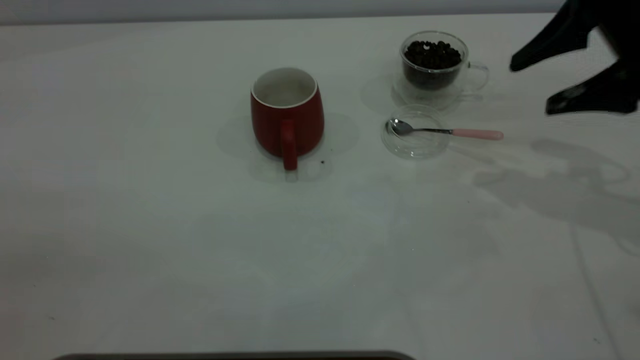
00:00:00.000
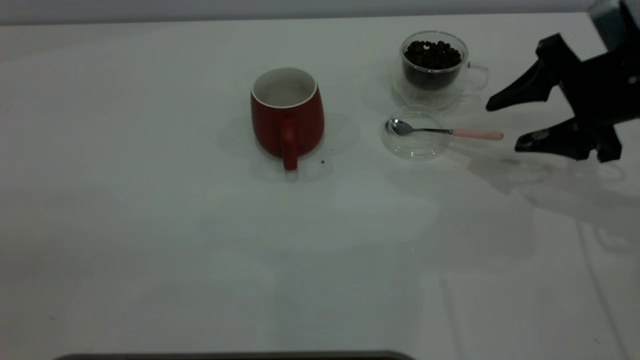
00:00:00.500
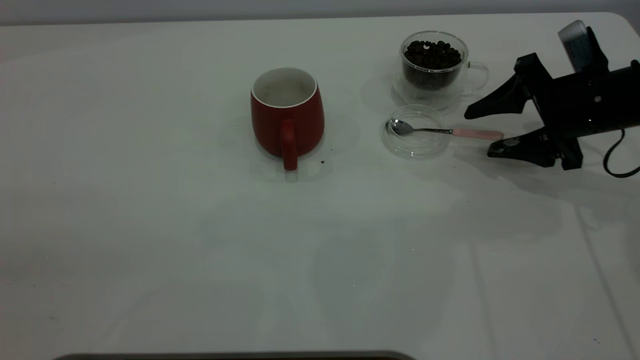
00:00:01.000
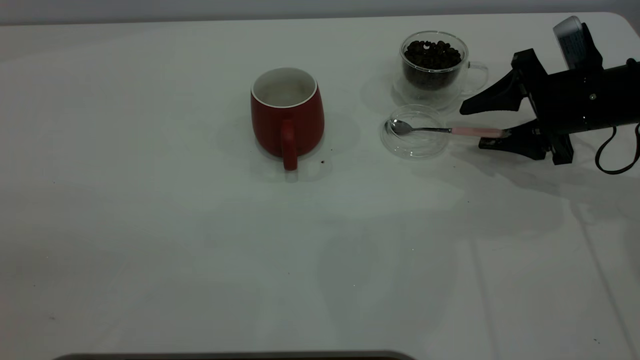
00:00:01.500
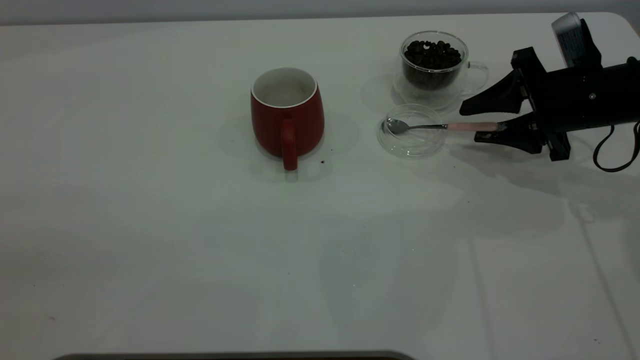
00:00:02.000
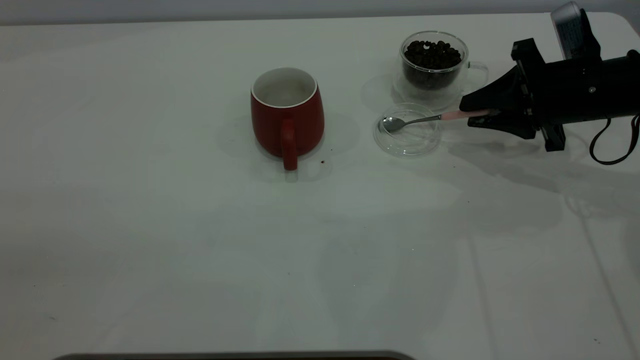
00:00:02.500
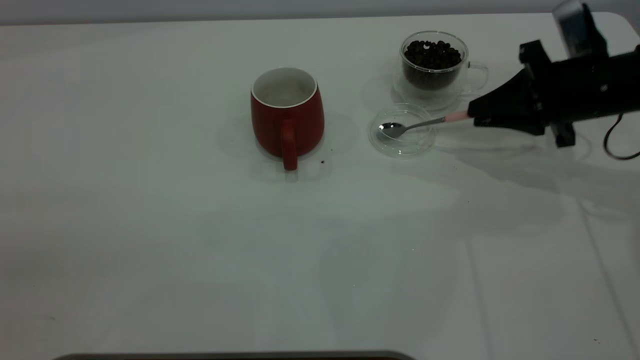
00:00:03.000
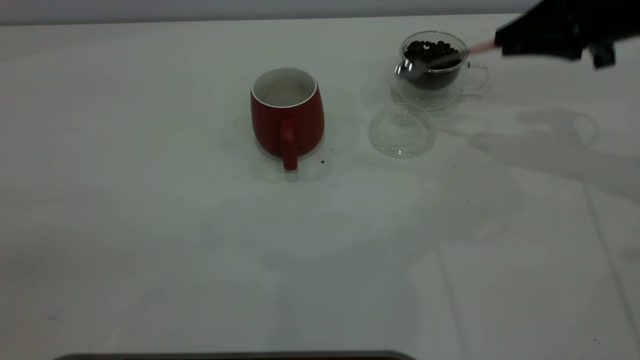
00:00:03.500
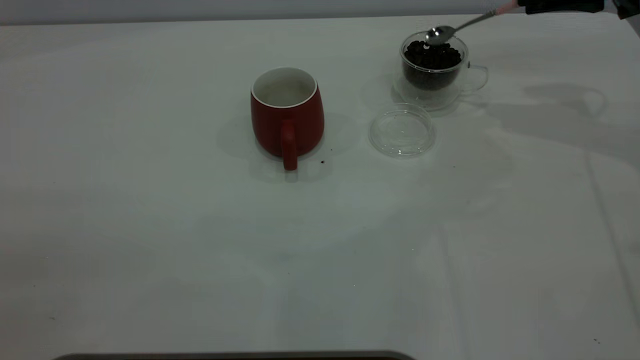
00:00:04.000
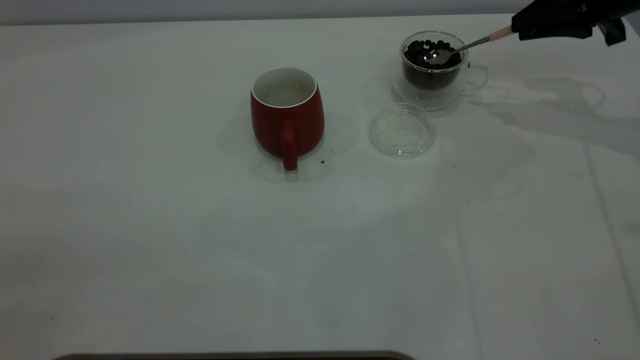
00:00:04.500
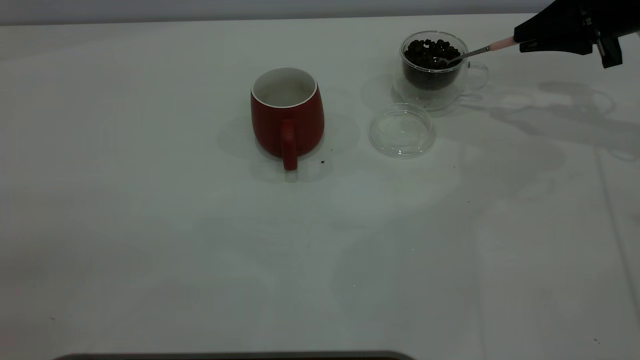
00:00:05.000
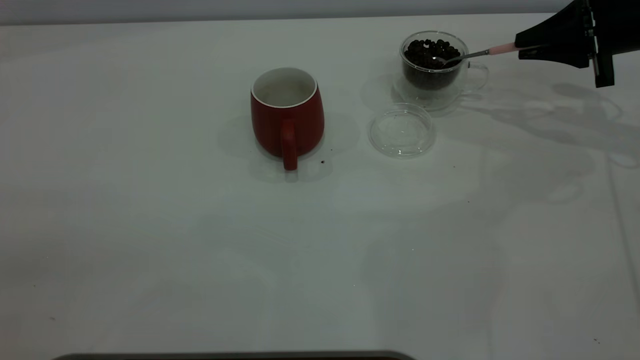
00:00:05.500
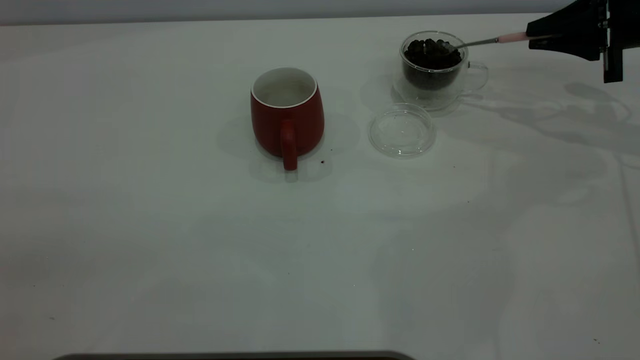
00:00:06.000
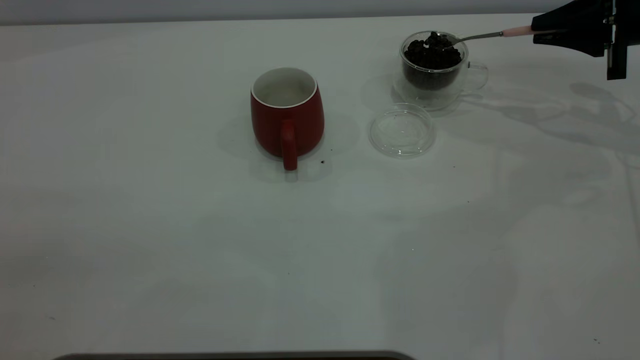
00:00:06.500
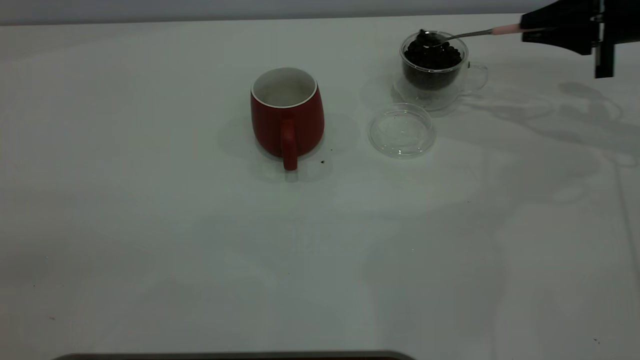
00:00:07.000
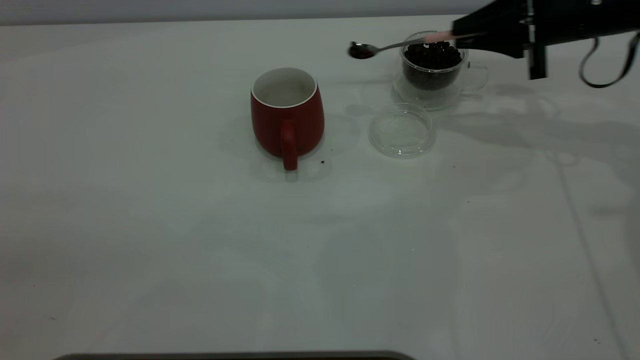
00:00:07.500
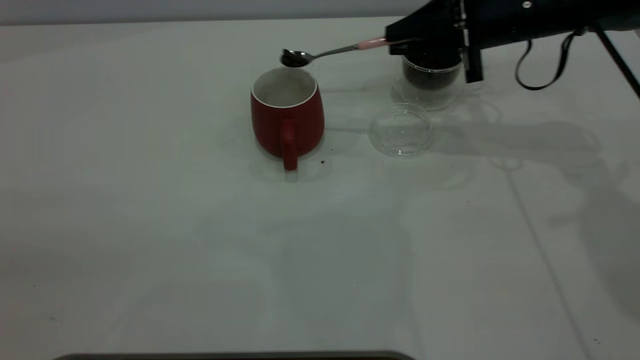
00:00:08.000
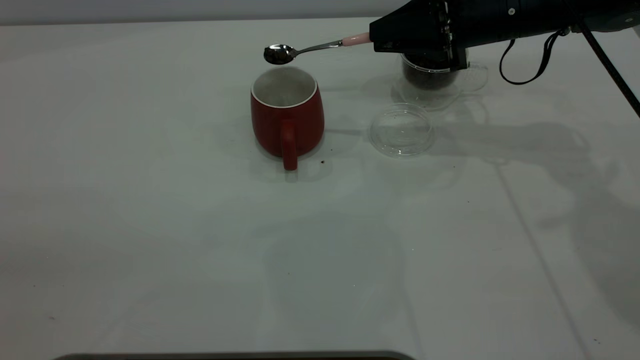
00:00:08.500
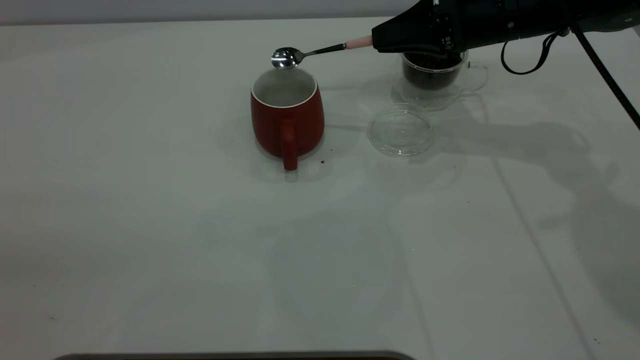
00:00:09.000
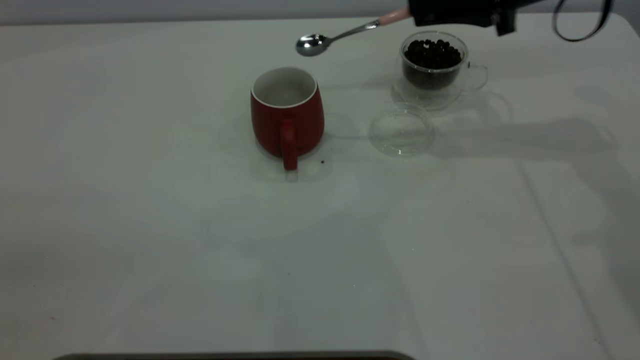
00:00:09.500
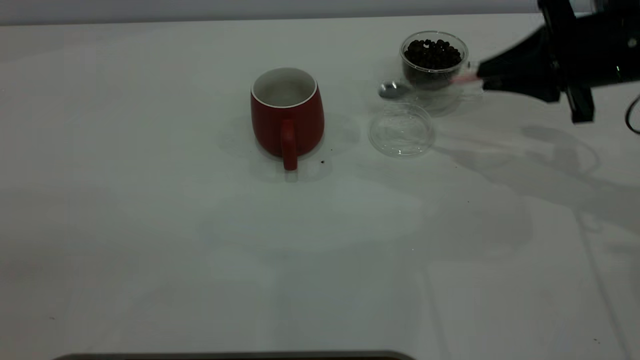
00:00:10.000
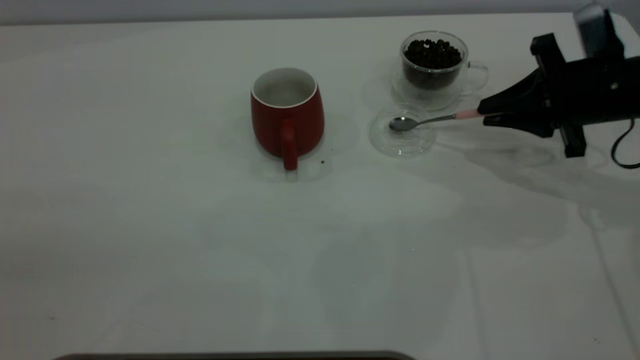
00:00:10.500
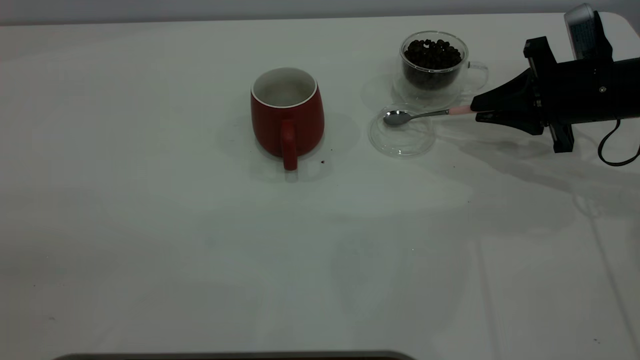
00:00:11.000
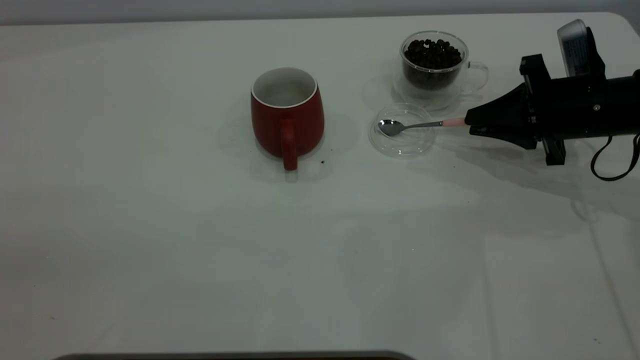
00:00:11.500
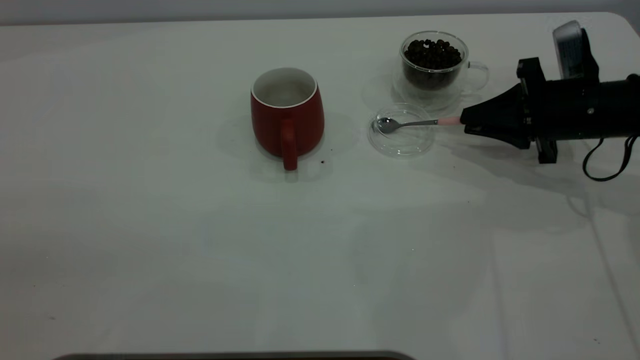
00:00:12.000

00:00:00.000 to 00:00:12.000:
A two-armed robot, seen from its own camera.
Task of the whole recording: the left gripper place the red cup in the center of the table, the right gripper take the pink spoon from the cup lid and scoop out the coffee beans from the coffee cup and put them into the red cup, the right gripper put the spoon back into the cup lid.
Step, 00:00:00.000 to 00:00:03.000: Pick up the spoon.
Step, 00:00:03.500 to 00:00:09.000: Scoop a spoonful of beans into the cup.
00:00:00.000 to 00:00:02.000: The right gripper shifts about 10 cm downward.
00:00:02.000 to 00:00:04.000: The right gripper shifts roughly 15 cm upward and forward, and closes its fingers.
00:00:04.000 to 00:00:06.000: The right gripper heads downward, covering roughly 5 cm.
00:00:06.000 to 00:00:08.000: The right gripper moves to the left, about 15 cm.
00:00:08.000 to 00:00:10.000: The right gripper heads to the right and backward, covering about 10 cm.
00:00:10.000 to 00:00:12.000: The right gripper heads downward, covering about 10 cm.

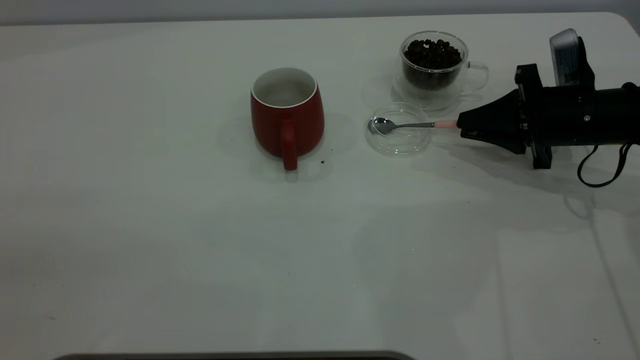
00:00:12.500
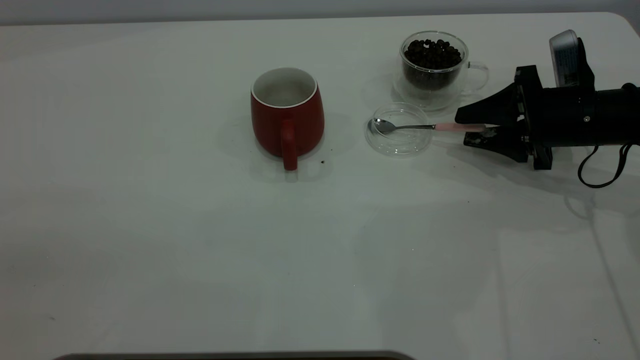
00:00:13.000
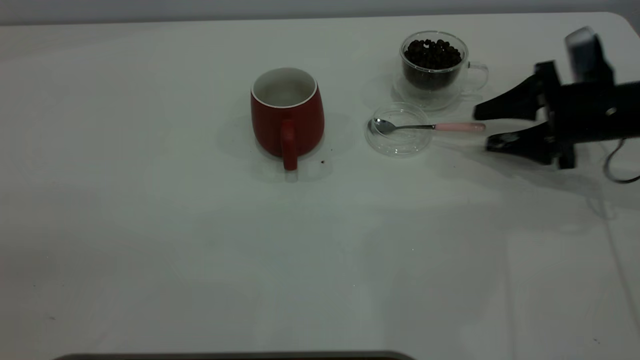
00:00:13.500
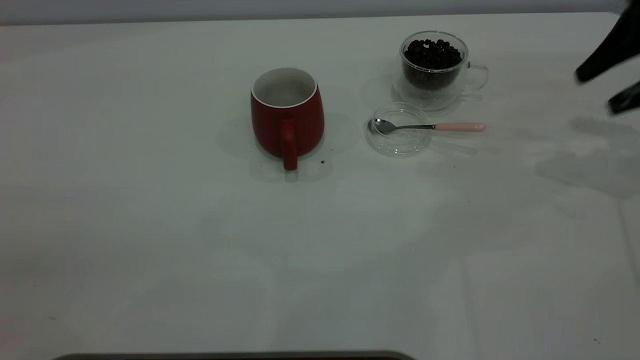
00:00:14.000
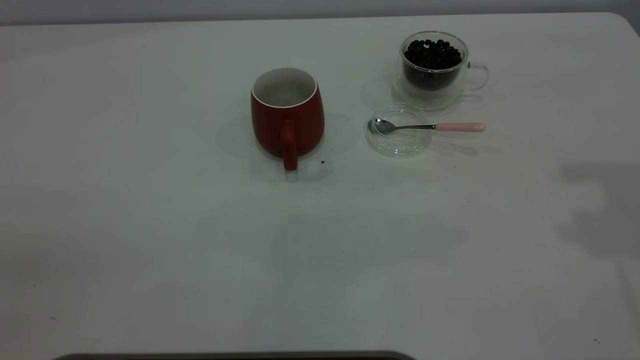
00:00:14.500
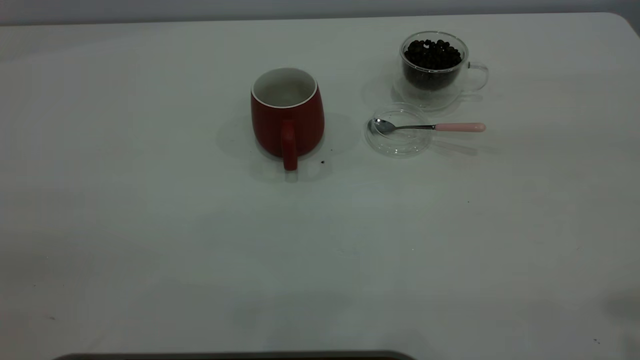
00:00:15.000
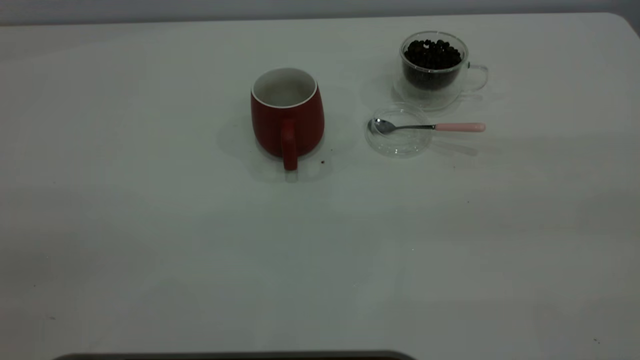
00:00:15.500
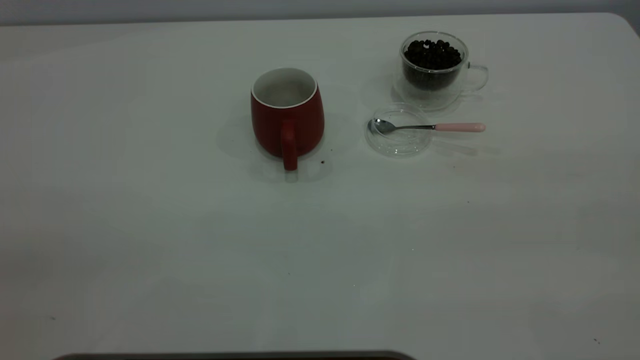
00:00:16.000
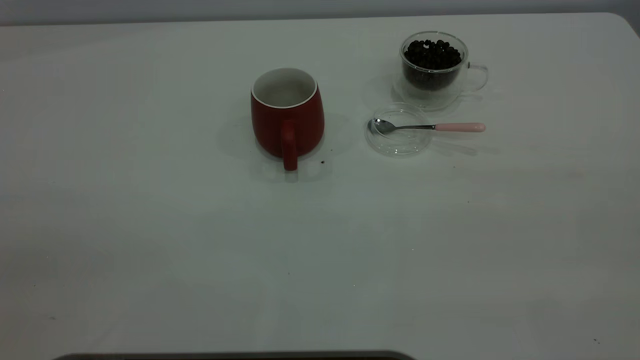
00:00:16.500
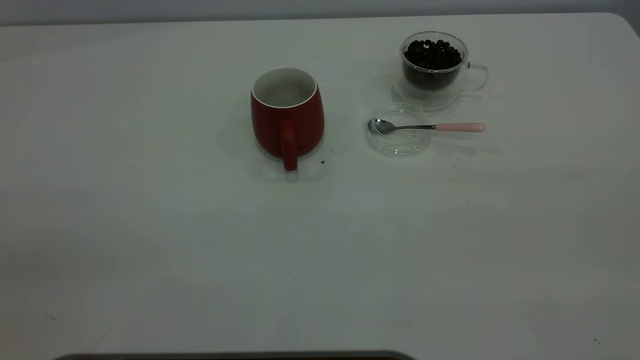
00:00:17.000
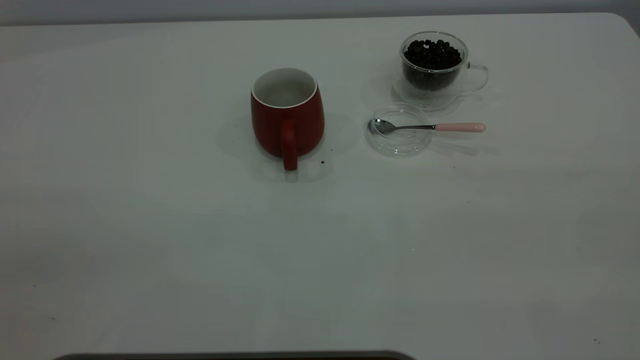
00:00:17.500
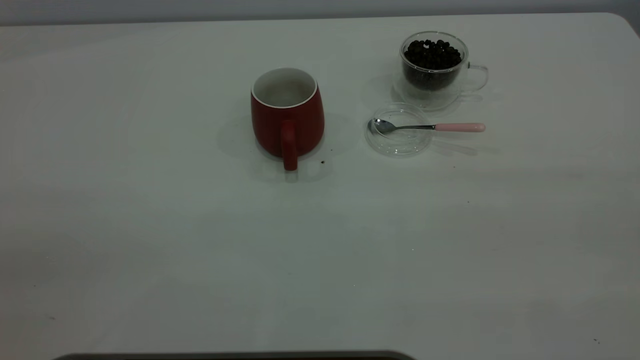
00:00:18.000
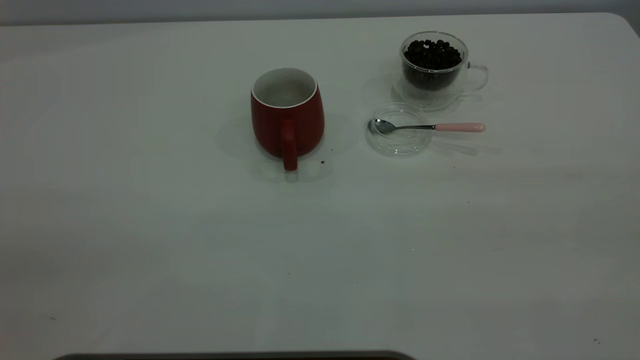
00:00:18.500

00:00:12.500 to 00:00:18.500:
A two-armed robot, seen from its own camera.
Task of the whole recording: the left gripper place the red cup in the center of the table, the right gripper take the pink spoon from the cup lid and scoop out the coffee beans from the coffee cup and put them into the red cup, the right gripper put the spoon back into the cup lid.
00:00:12.500 to 00:00:14.500: The right gripper goes roughly 35 cm upward, and opens its fingers.
